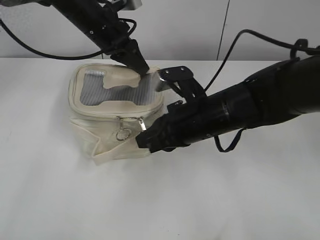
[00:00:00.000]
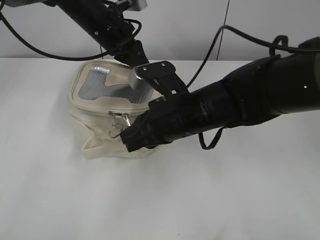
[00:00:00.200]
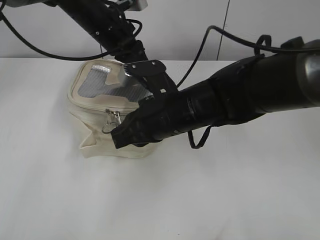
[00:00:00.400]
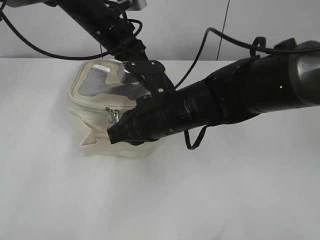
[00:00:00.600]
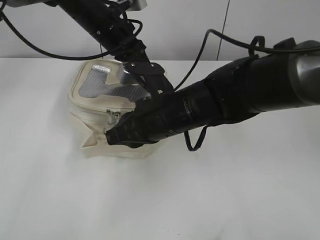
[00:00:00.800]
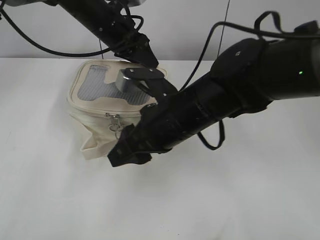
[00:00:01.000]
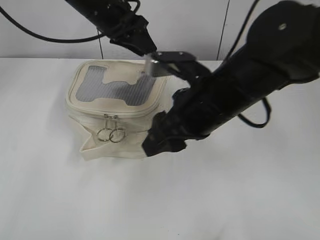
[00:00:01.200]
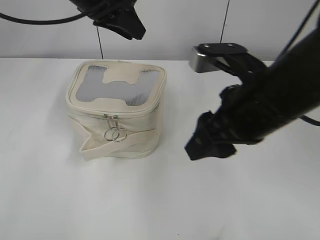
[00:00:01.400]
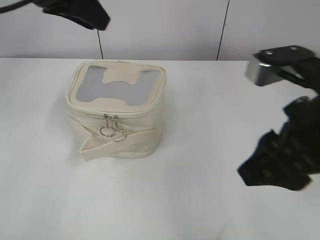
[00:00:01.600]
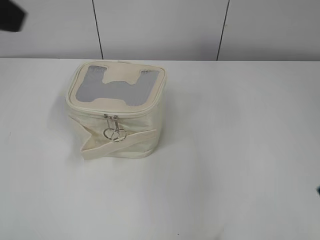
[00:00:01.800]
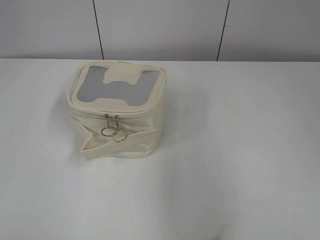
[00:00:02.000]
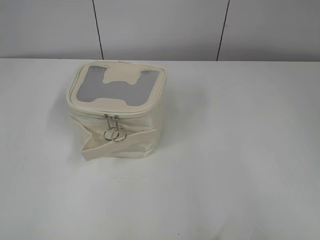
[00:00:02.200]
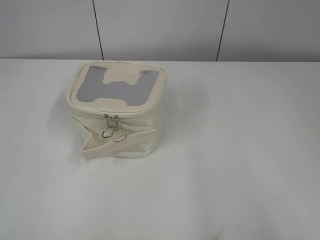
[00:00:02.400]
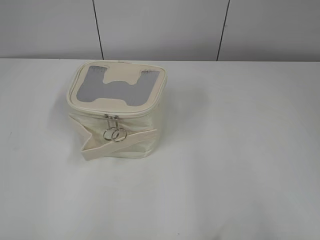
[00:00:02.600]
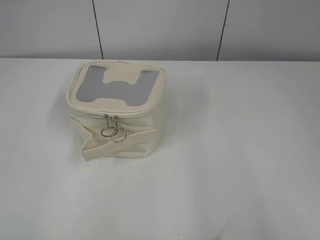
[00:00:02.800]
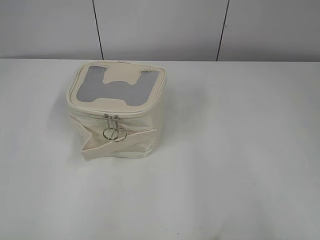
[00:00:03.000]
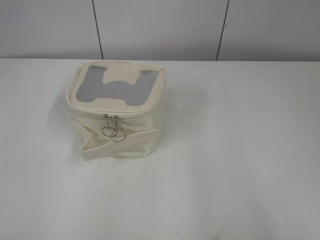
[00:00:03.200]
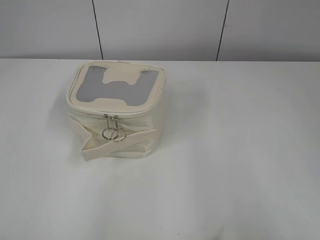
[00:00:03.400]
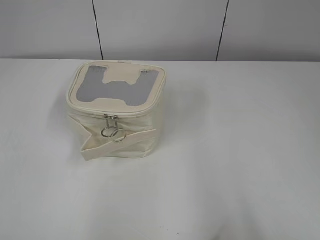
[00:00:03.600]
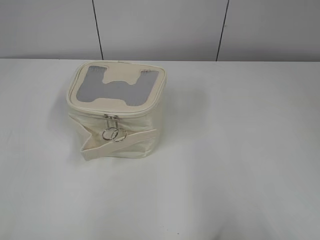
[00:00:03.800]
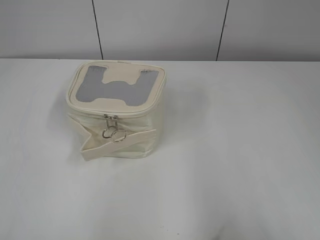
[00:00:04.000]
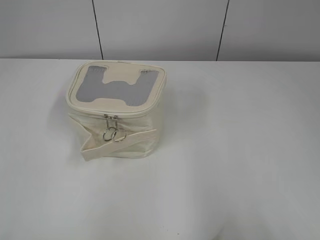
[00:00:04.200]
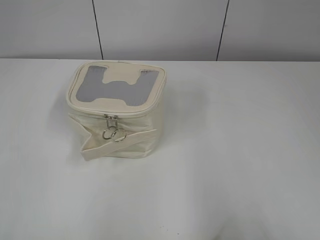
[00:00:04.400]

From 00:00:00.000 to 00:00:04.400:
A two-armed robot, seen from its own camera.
Step, from 00:00:01.000 to 00:00:01.200: Hold the bag with your left hand.
From 00:00:00.000 to 00:00:01.400: The grippers both shift upward by about 10 cm. The right gripper opens. The left gripper opens up.
From 00:00:01.400 to 00:00:03.000: The right gripper goes about 30 cm backward and to the right, while the left gripper goes some 50 cm backward and to the left.

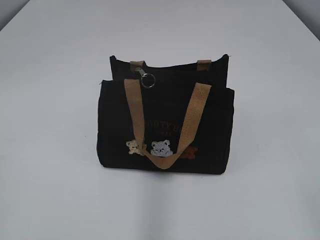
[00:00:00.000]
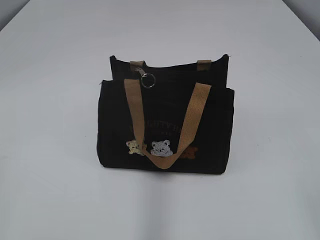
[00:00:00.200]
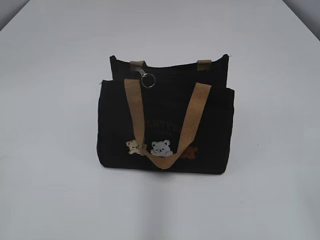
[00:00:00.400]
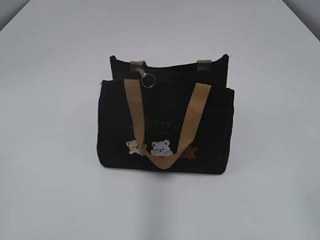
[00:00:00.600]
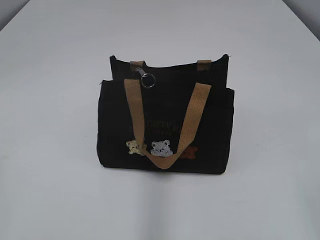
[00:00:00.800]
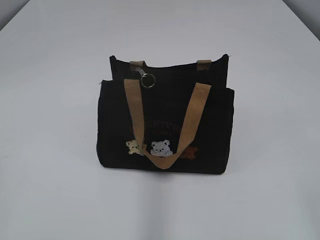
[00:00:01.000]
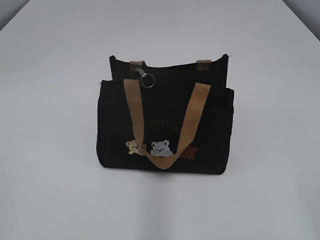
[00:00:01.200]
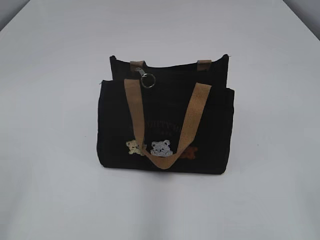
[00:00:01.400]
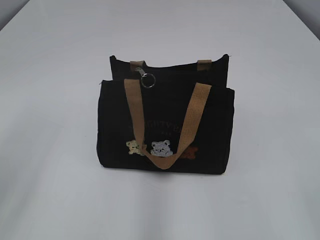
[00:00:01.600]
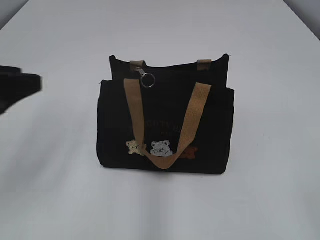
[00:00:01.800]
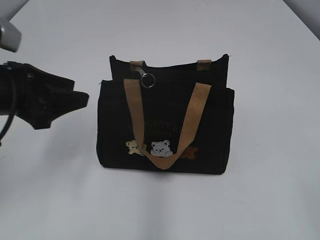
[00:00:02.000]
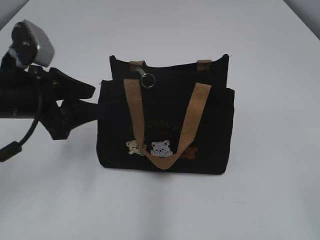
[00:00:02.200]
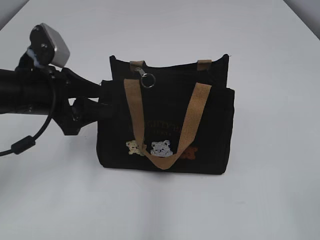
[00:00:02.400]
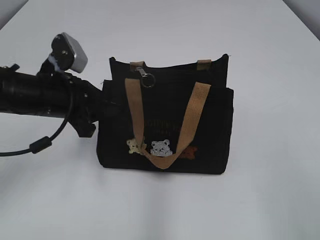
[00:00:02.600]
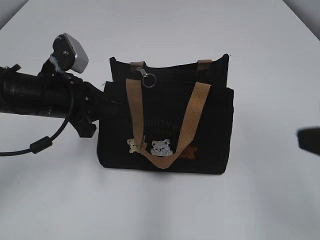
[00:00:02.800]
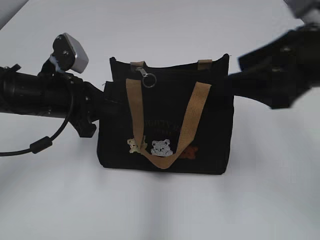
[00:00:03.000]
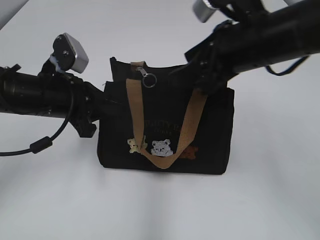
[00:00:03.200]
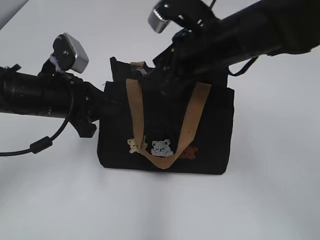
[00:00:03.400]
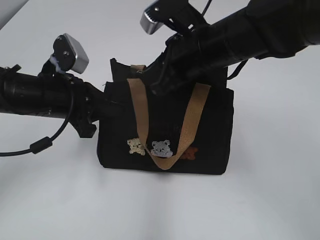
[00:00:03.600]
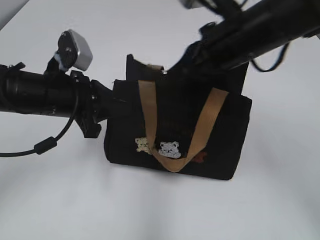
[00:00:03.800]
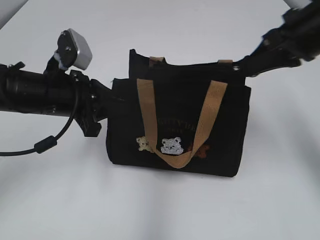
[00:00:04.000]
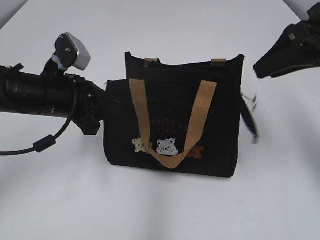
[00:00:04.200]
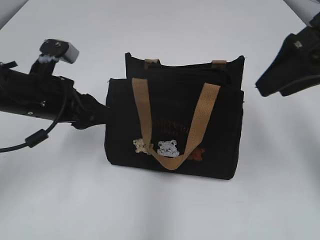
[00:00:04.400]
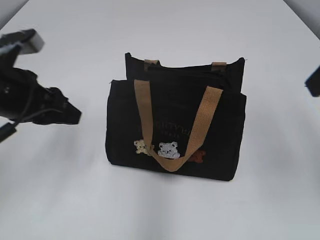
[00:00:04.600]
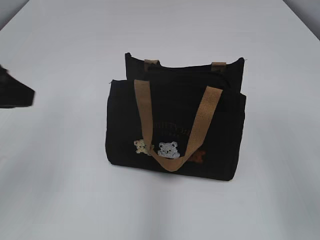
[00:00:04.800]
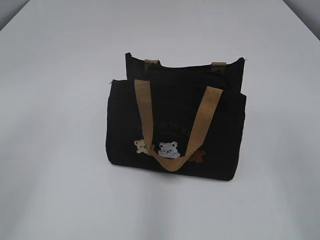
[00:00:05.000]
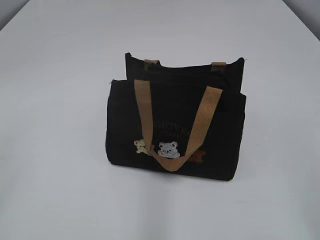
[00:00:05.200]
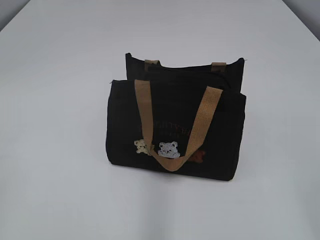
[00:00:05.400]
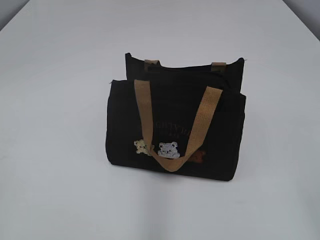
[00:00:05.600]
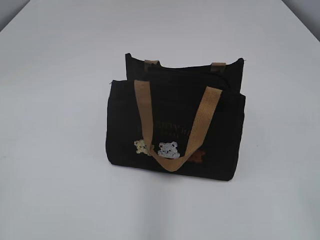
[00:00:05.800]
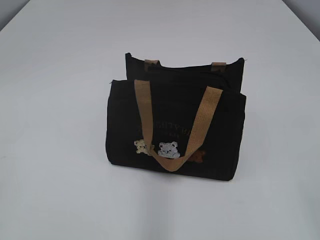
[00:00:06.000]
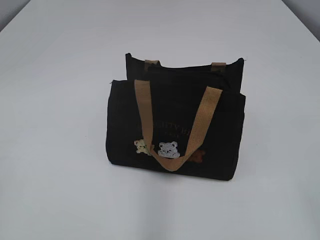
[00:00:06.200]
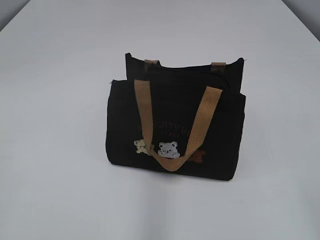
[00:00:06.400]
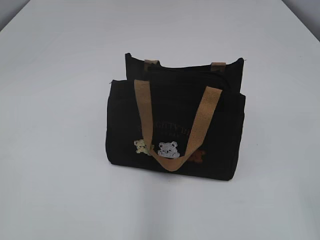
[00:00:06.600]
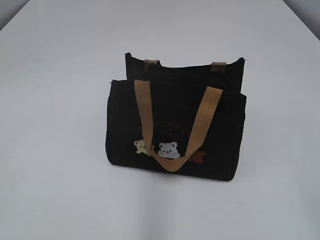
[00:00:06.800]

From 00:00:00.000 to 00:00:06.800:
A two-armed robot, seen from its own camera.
Step, from 00:00:00.000 to 00:00:04.000: Pull open the zipper with your right hand.
From 00:00:01.400 to 00:00:02.800: The left gripper shifts about 30 cm forward and to the right, and closes, while the right gripper is displaced forward by about 5 cm.
From 00:00:02.800 to 00:00:04.000: The right gripper travels forward by approximately 25 cm, and closes its fingers.
From 00:00:04.000 to 00:00:05.400: The right gripper travels backward by approximately 30 cm, and opens, while the left gripper shifts about 35 cm backward, to the left and upward, and opens up.
